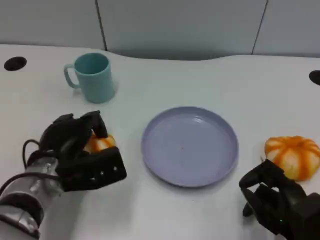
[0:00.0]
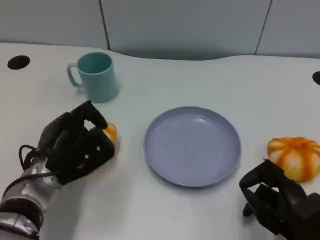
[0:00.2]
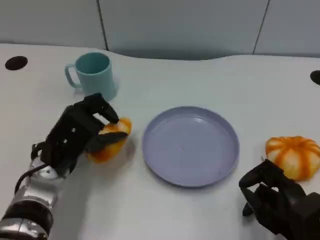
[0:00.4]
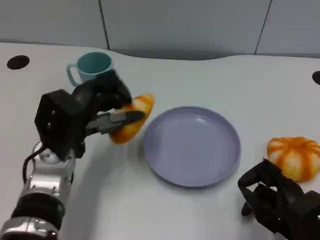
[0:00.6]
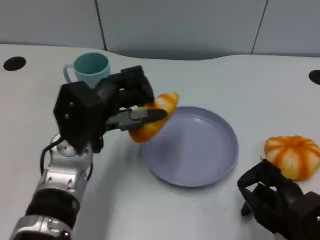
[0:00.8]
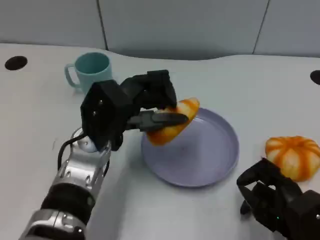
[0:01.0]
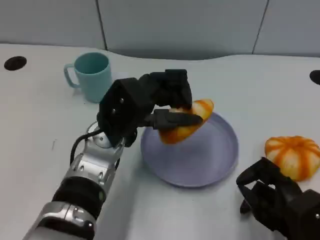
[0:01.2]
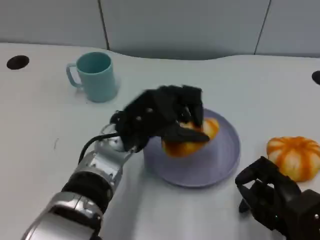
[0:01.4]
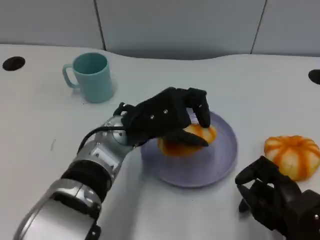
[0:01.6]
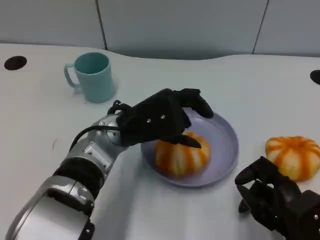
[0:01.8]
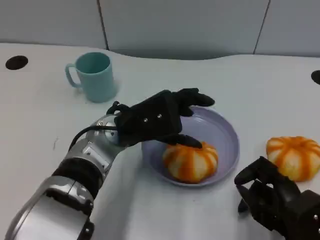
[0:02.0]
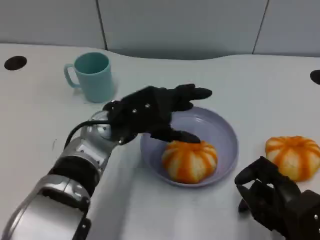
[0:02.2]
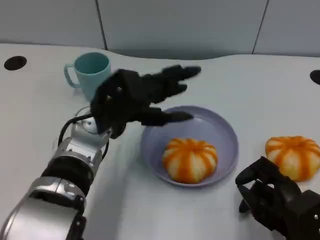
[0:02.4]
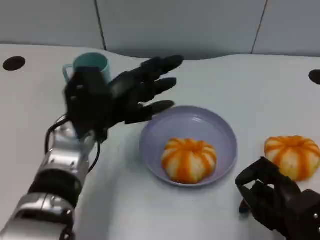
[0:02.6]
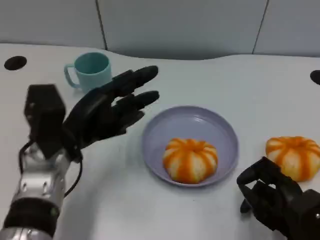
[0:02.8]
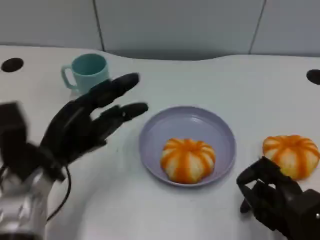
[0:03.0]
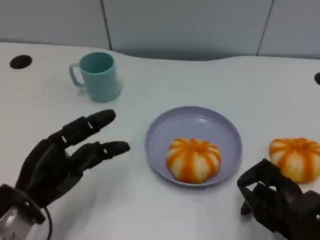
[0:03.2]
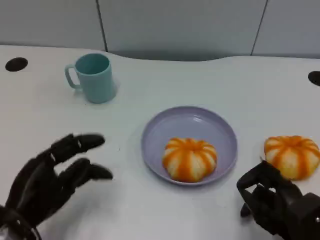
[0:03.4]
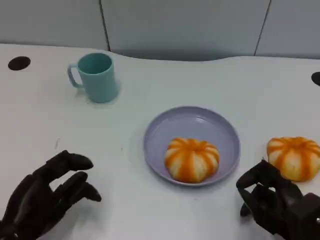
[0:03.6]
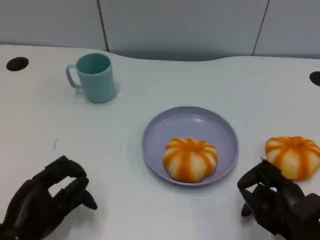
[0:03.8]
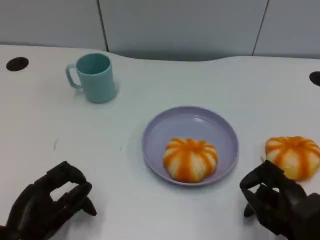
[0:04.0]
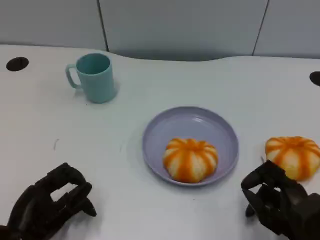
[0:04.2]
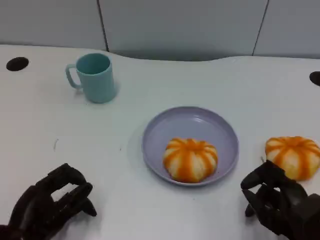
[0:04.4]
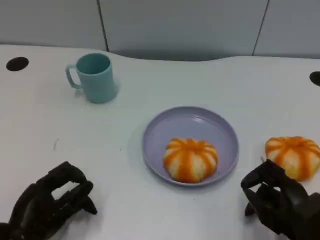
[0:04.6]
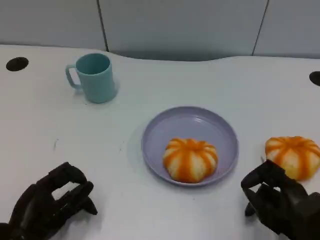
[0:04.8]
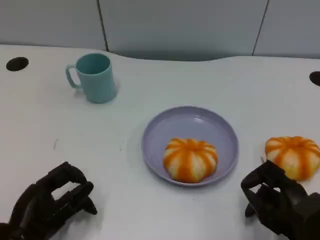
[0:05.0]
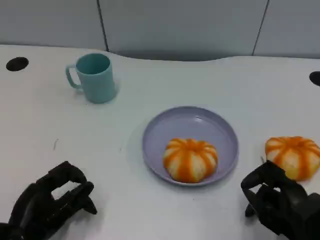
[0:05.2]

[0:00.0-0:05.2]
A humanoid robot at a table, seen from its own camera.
Task of the whole recording: Grasp the bread from the table and place it into the plate.
0.0 to 1.8 s: The left hand travels to the right and upward by approximately 10 cm.
1.8 to 3.4 s: The left hand goes about 20 cm to the left, backward and downward.
3.4 to 5.2 s: The hands make only small movements.

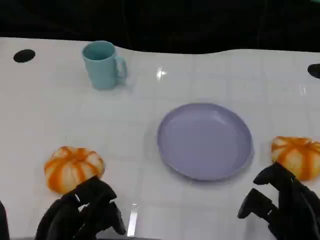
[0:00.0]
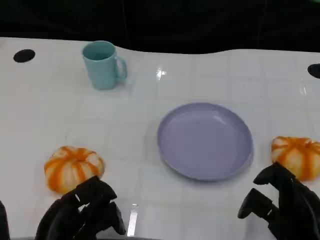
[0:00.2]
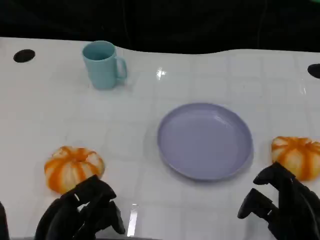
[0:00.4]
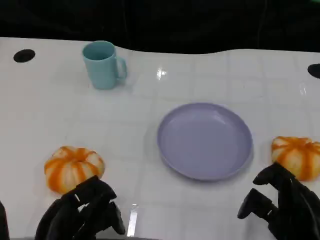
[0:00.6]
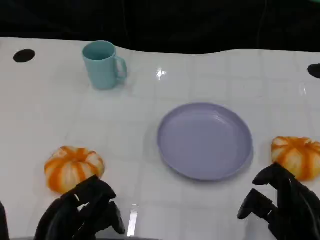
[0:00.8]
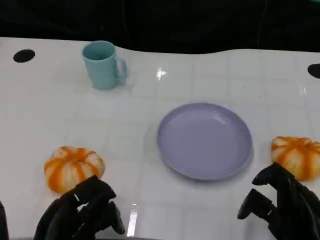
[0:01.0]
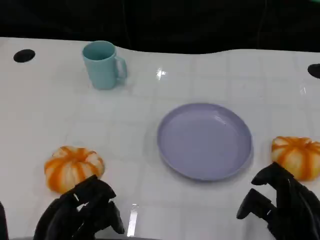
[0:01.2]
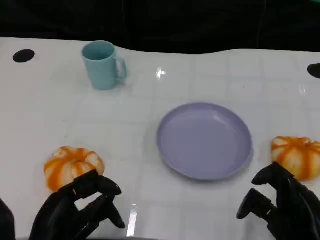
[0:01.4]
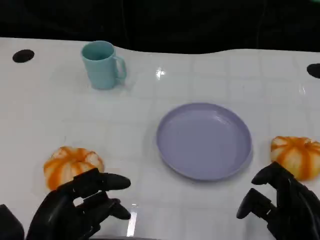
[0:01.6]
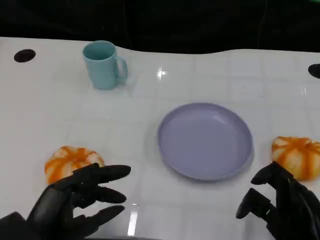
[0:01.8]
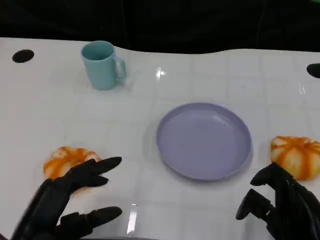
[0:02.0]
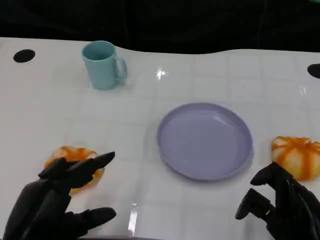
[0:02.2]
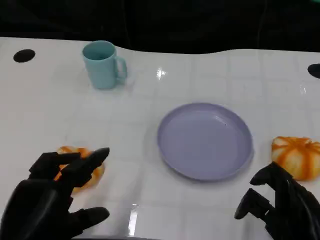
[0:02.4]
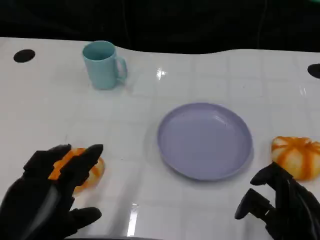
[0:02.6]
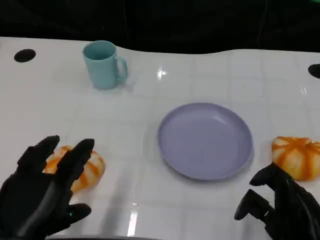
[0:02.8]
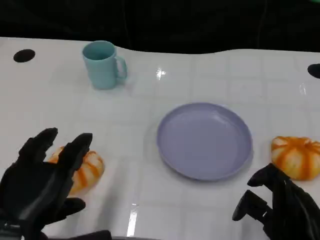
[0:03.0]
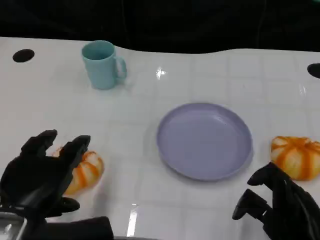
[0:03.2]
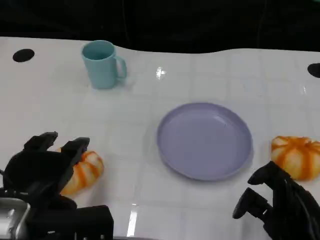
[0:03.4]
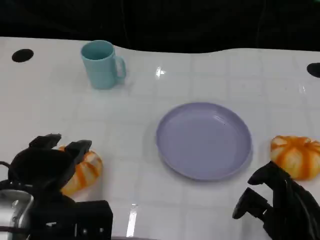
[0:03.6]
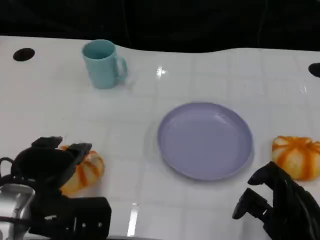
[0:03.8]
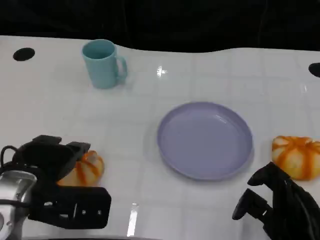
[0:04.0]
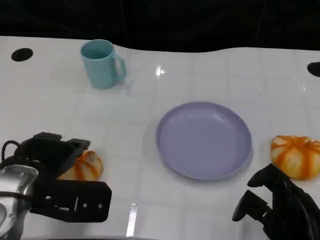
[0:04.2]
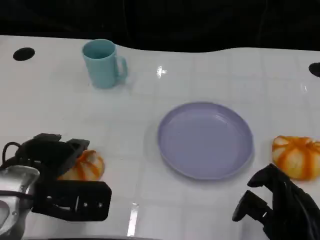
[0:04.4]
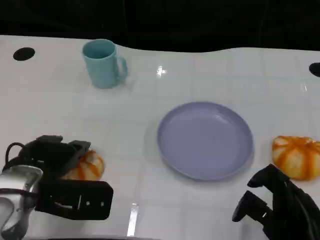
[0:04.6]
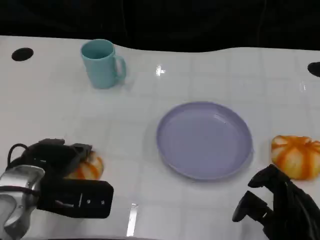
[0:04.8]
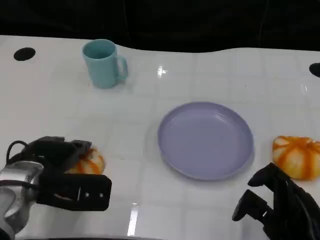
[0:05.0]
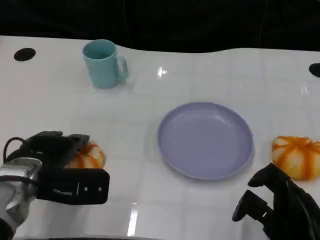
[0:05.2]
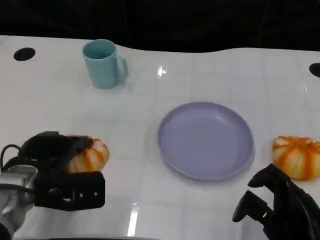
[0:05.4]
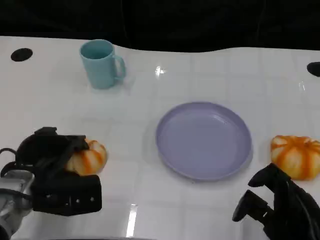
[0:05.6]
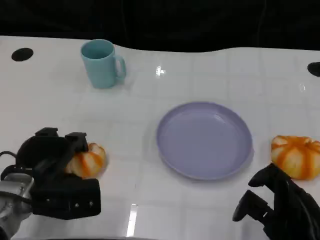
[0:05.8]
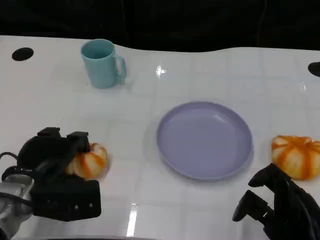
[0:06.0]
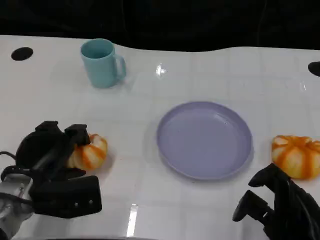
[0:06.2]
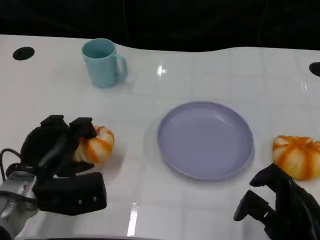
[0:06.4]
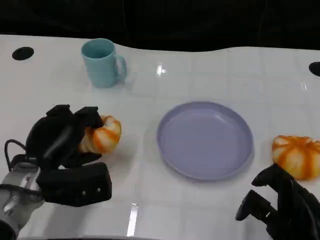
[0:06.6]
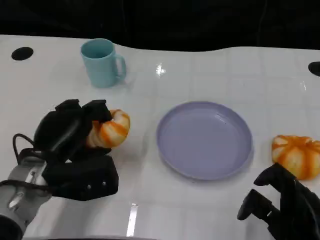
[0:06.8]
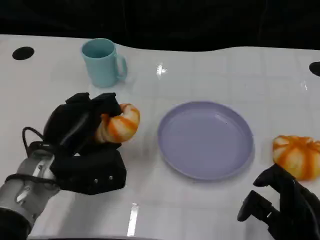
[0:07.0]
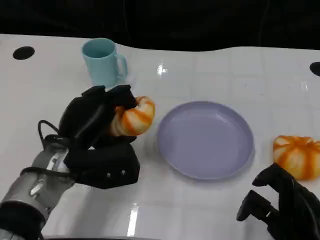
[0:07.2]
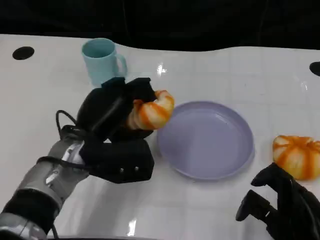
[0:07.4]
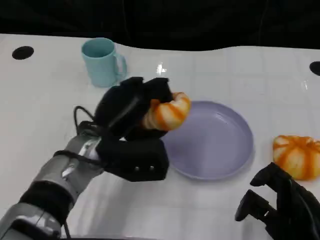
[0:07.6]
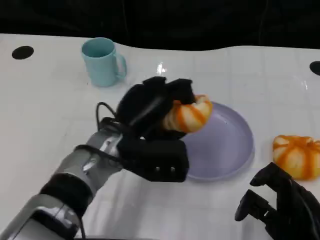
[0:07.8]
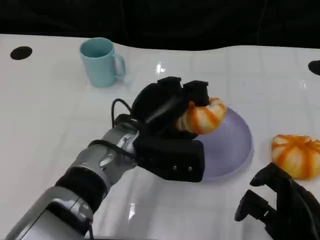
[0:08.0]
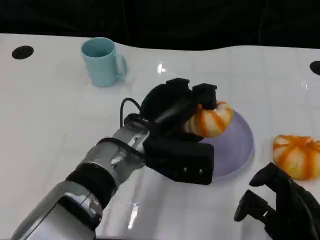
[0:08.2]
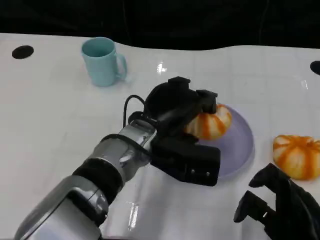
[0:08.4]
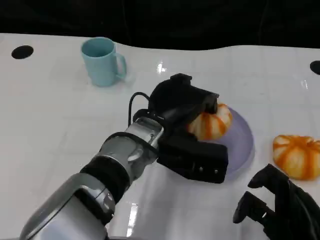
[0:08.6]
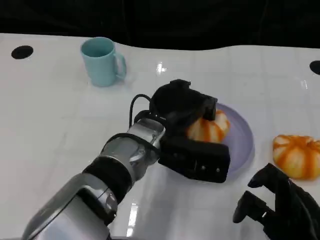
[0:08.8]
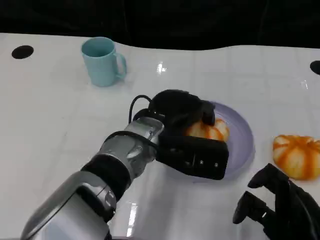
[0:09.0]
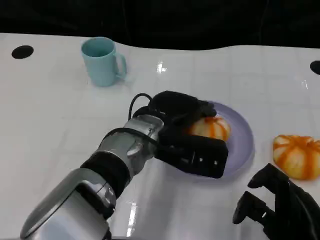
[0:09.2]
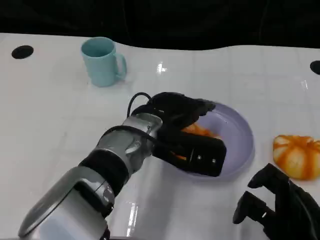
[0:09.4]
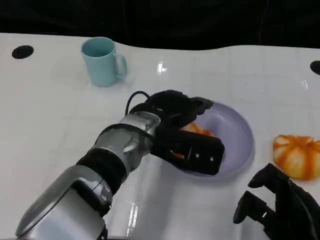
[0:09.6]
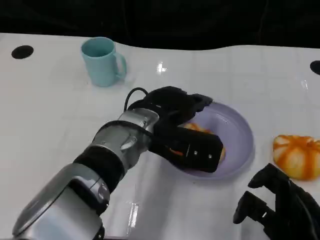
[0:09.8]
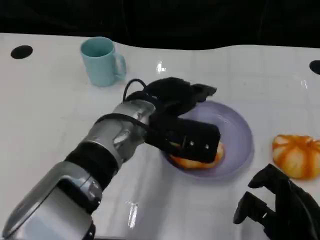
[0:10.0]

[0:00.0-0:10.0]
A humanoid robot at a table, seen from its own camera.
Task of the whole recording: Grasp the bread from the table and place it into the plate.
0.0 to 1.4 s: The hands make only small movements.
1.4 to 2.8 s: The left hand heads upward, covering approximately 5 cm.
2.8 to 4.2 s: The left hand moves forward, about 10 cm.
4.2 to 5.8 s: The left hand heads downward, covering about 5 cm.
5.8 to 7.2 s: The left hand travels to the right and upward by some 10 cm.
7.2 to 8.6 s: The left hand heads to the right, covering roughly 10 cm.

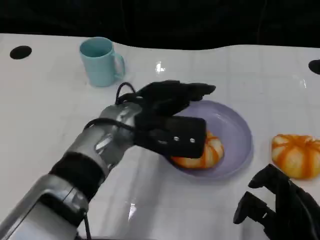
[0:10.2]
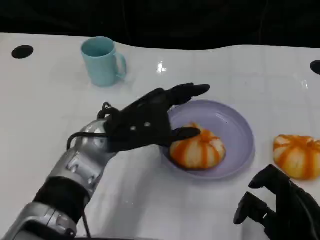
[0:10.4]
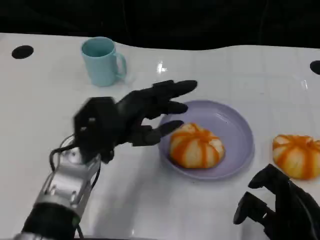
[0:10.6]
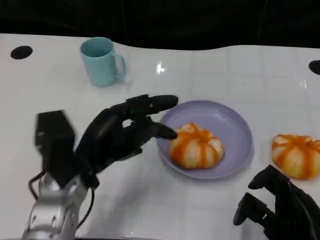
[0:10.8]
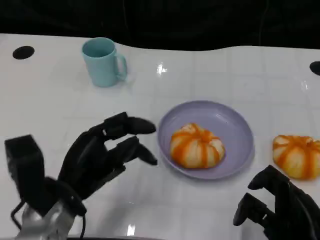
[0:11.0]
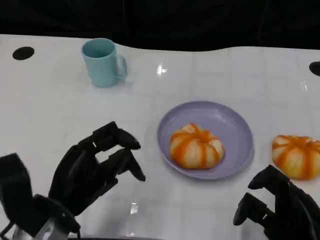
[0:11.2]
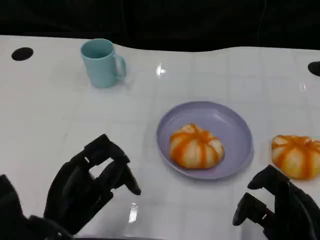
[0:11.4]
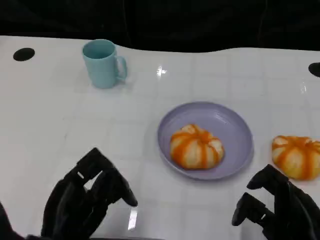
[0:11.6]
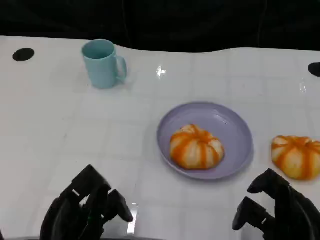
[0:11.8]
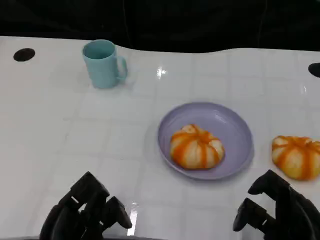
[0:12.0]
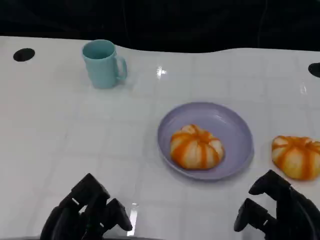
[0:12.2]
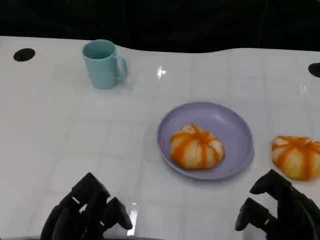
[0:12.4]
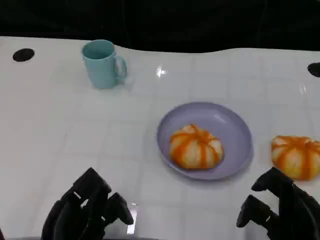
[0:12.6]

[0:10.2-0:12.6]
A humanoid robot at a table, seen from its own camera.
Task of the whole recording: Grasp the bread from the table and place it into the plate.
10.2 to 11.4 s: The left hand moves backward, to the left and downward, some 20 cm.
11.4 to 12.6 s: The hands move only a little.

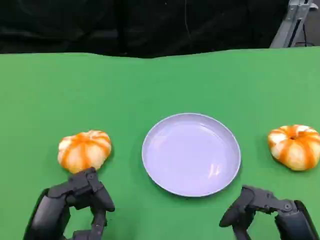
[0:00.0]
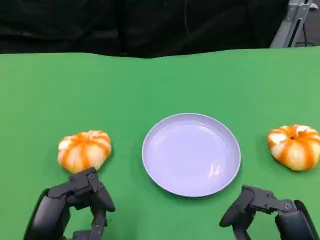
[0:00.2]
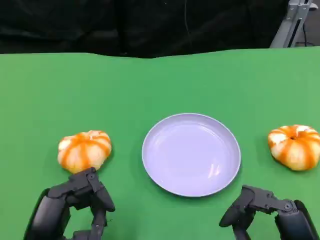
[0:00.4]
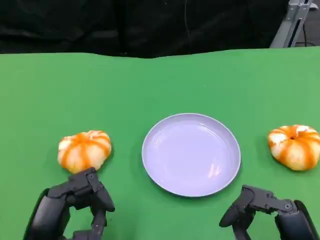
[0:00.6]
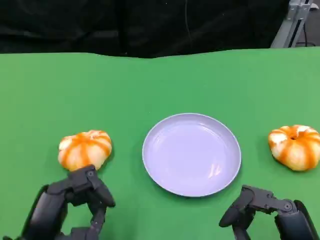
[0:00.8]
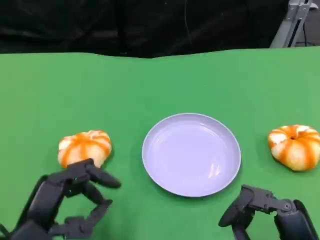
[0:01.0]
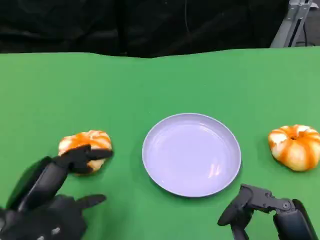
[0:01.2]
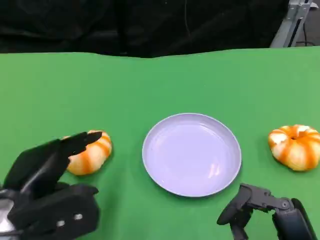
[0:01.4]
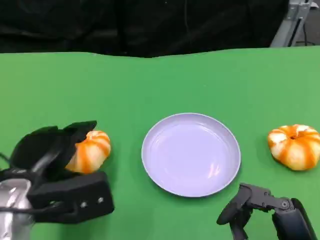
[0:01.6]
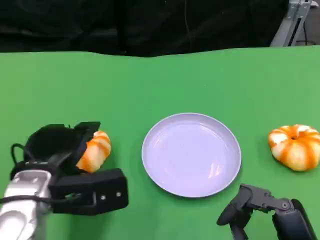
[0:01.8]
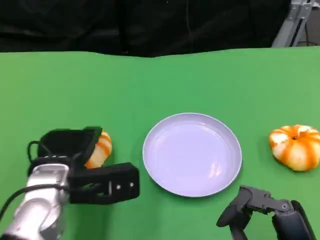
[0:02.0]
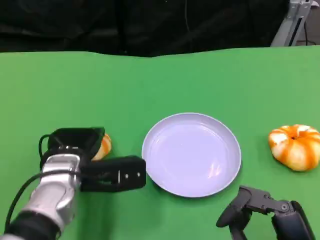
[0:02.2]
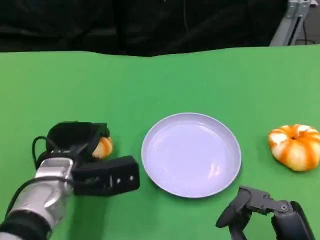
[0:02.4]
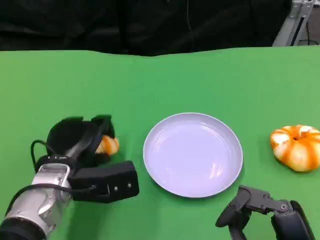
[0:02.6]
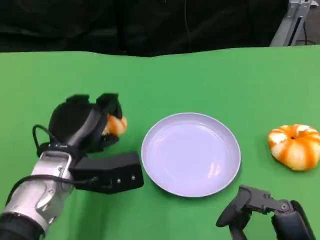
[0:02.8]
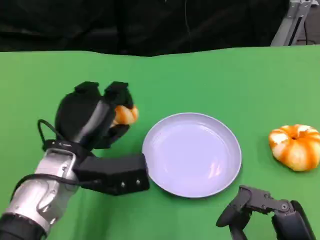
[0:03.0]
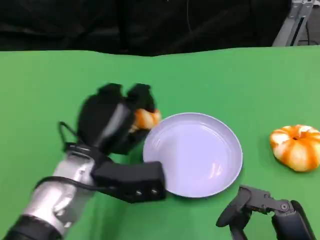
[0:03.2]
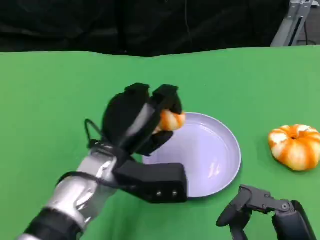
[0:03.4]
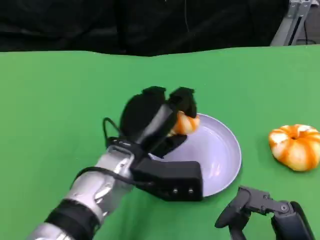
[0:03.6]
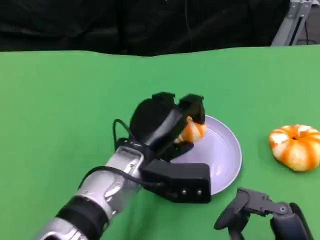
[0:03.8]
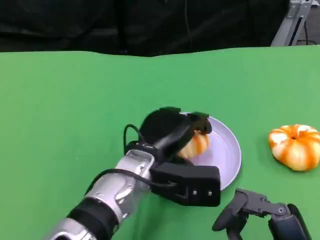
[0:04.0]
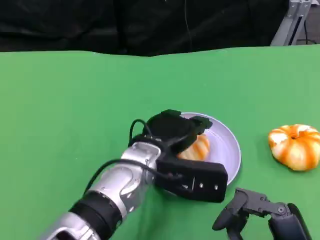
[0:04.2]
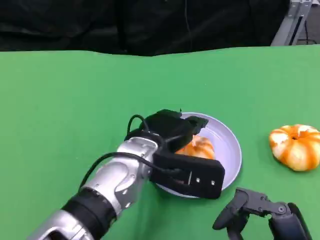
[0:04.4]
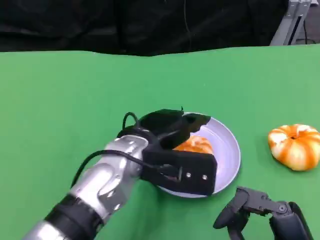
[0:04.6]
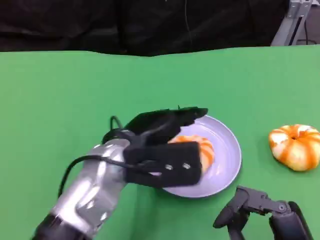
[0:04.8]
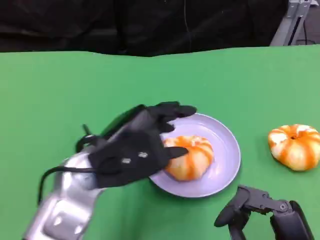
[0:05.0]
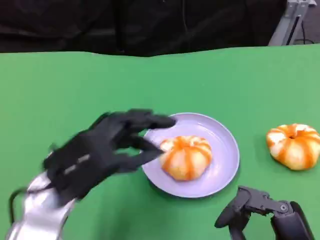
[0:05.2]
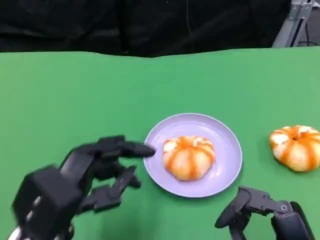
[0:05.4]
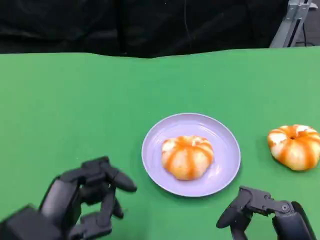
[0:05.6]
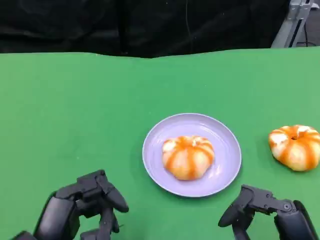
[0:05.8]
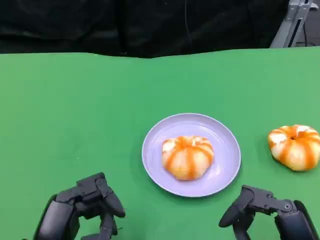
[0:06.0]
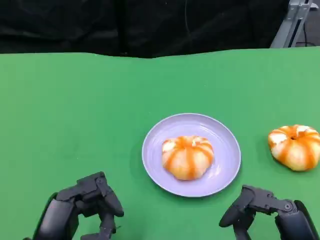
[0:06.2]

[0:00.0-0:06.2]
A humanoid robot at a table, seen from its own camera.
Task of the whole recording: Grasp the bread from the table and place it into the plate.
0.0 to 1.6 s: The left hand travels forward by about 10 cm.
1.6 to 3.2 s: The left hand heads to the right, covering approximately 10 cm.
3.2 to 4.6 s: The left hand shifts some 5 cm to the right.
4.6 to 6.2 s: The left hand travels backward, to the left and downward by about 20 cm.
